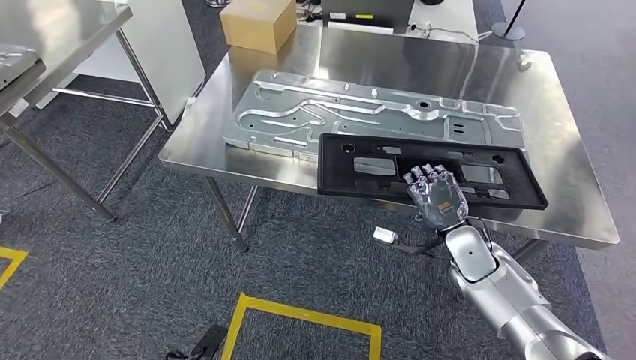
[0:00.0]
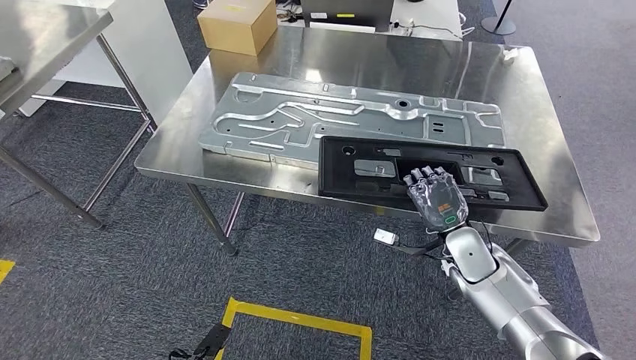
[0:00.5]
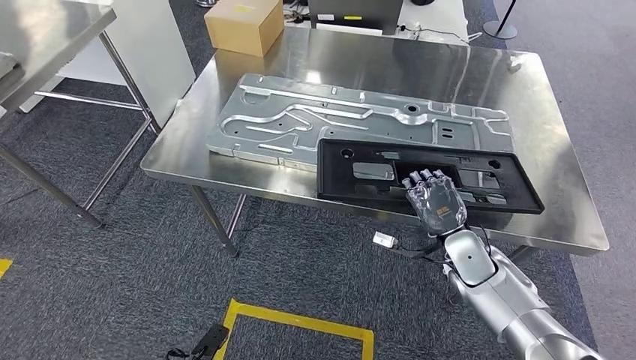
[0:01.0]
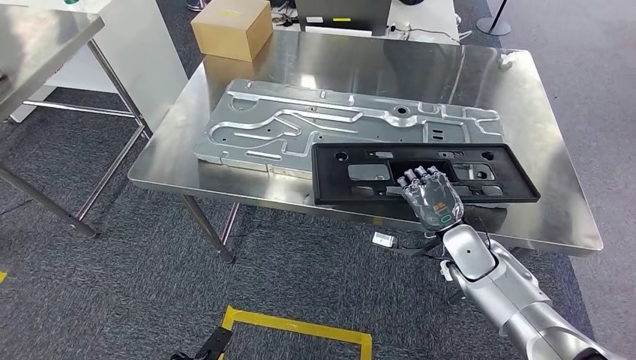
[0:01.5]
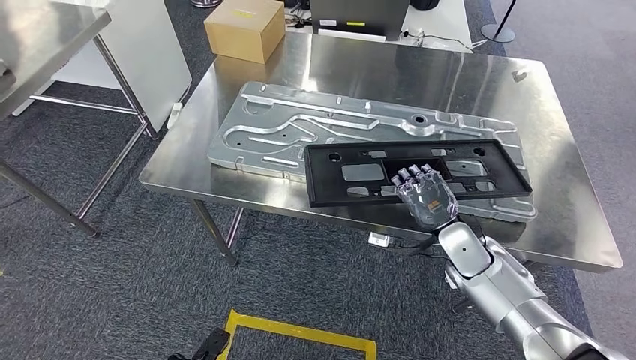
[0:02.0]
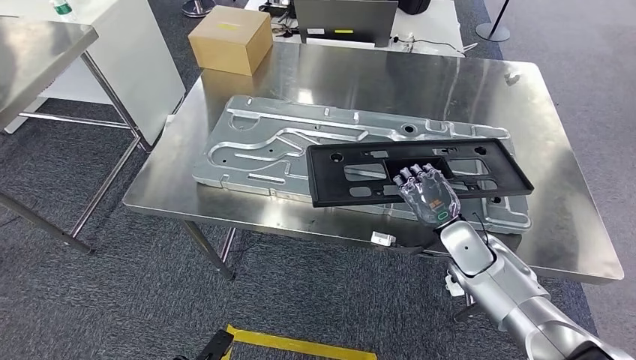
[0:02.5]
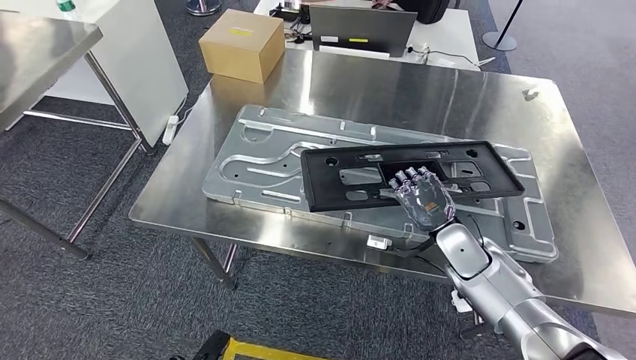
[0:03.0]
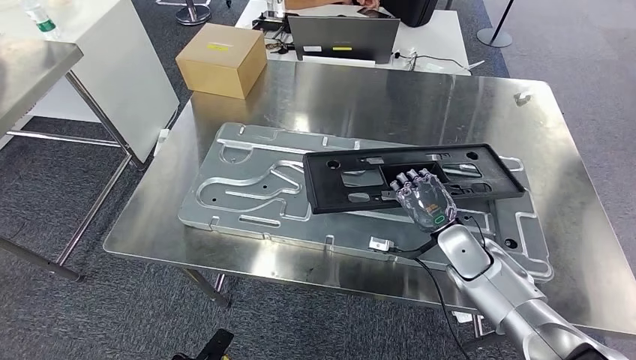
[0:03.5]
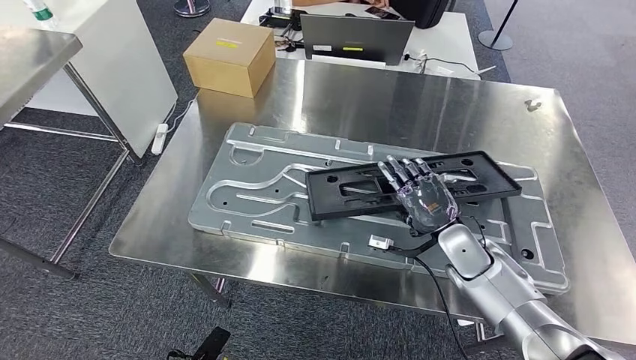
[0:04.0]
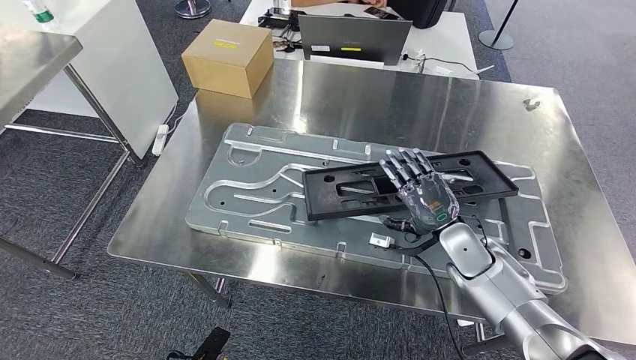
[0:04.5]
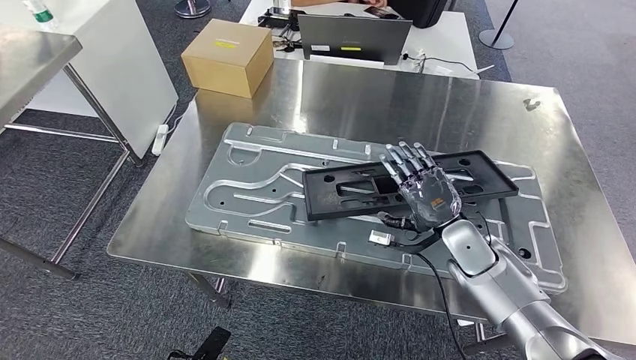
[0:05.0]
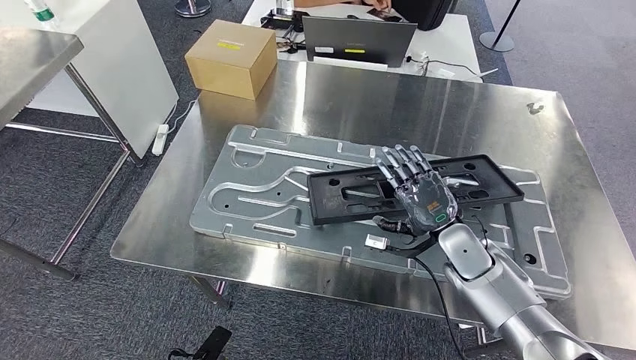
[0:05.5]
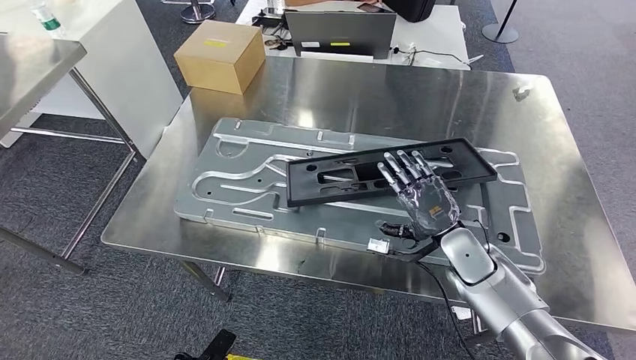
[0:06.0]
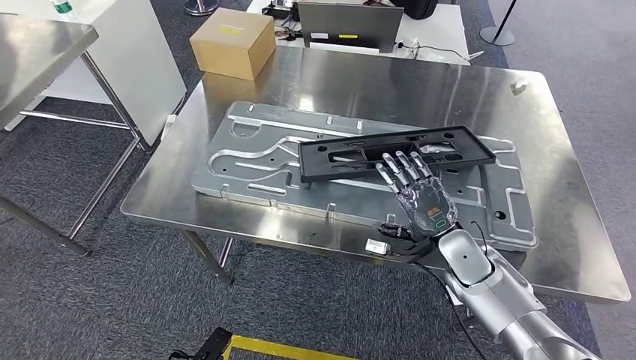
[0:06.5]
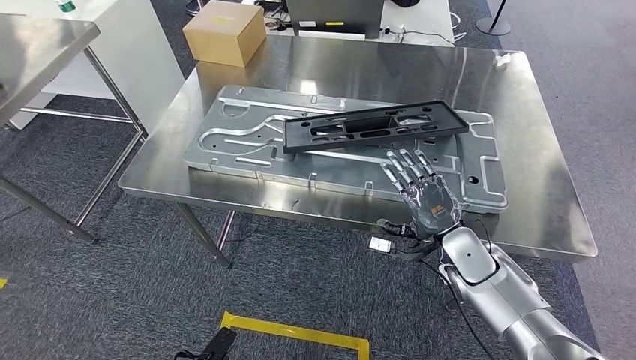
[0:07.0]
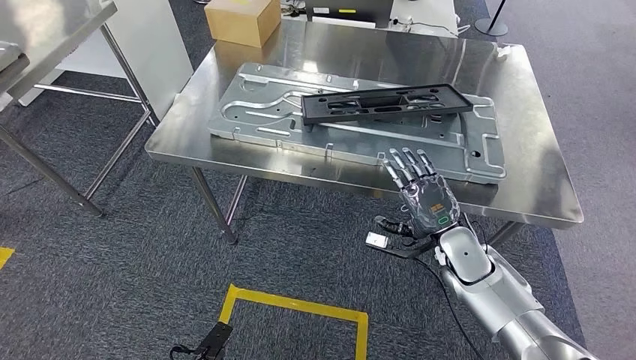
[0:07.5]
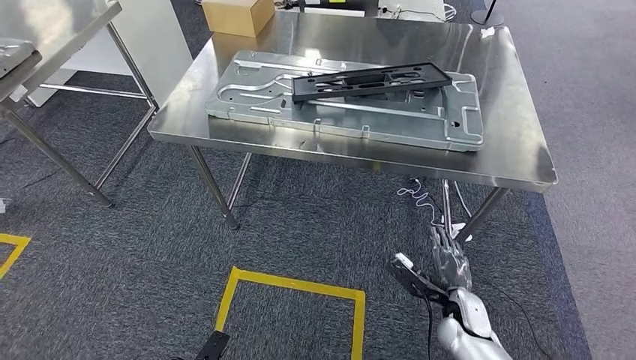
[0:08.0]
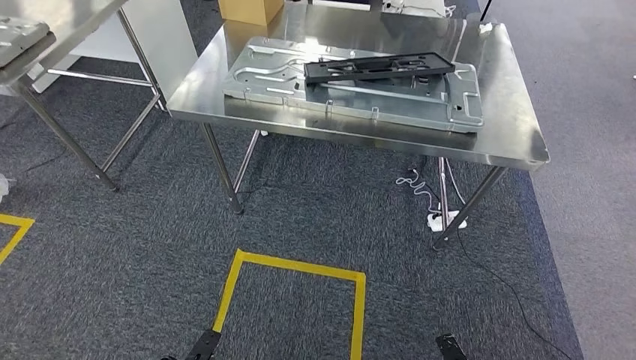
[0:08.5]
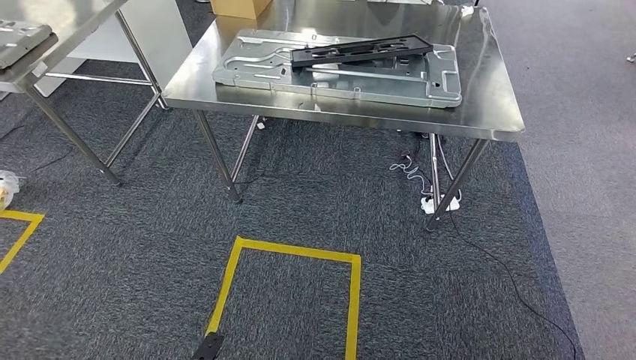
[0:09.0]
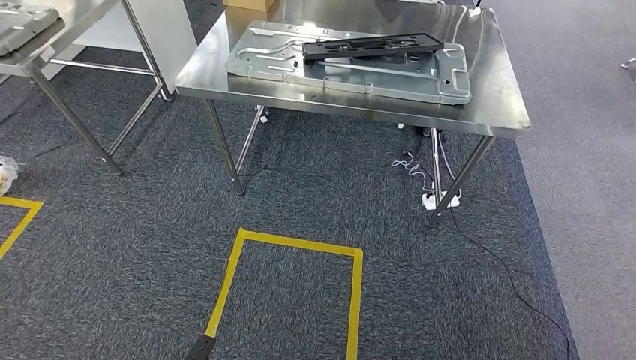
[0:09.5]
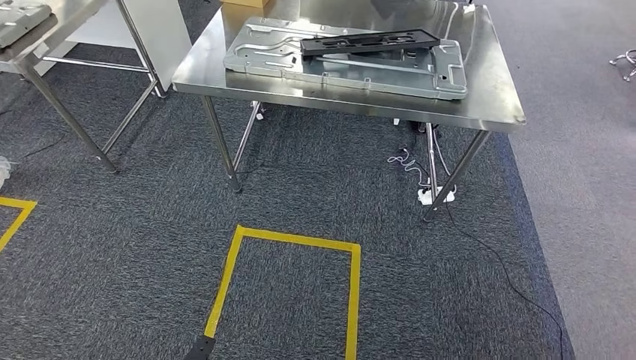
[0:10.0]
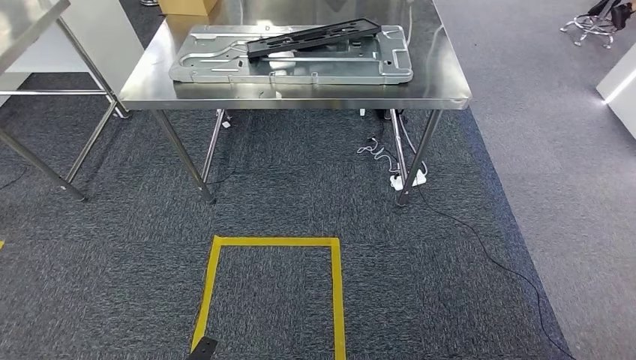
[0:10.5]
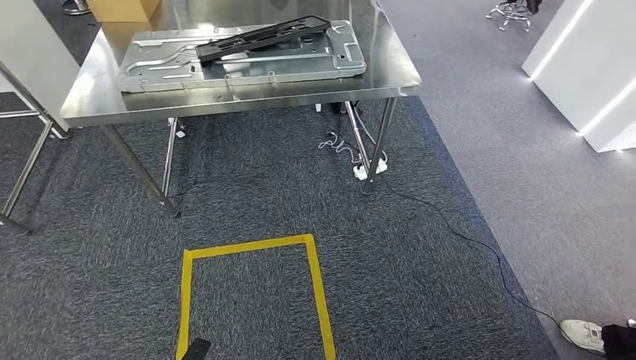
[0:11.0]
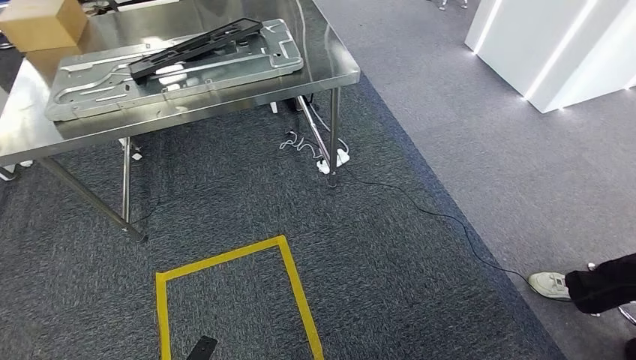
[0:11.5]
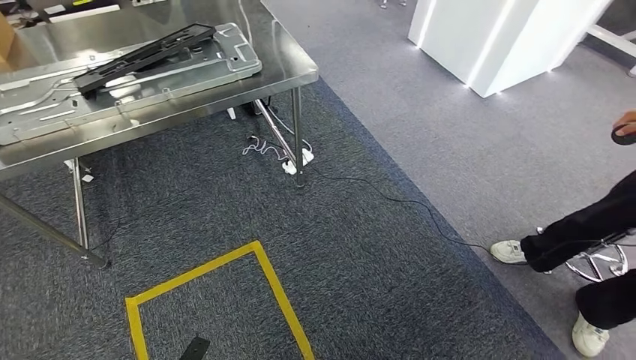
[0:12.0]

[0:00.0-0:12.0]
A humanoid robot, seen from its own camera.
Step, 0:00.0 to 0:07.5: Insert the large material into the corresponding slot on the workbench.

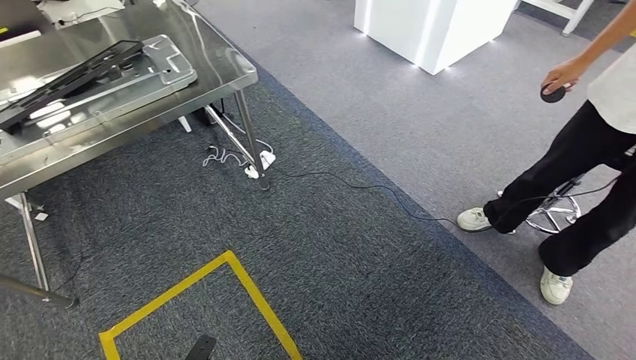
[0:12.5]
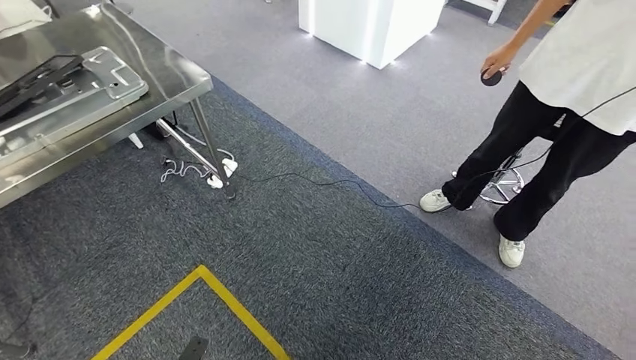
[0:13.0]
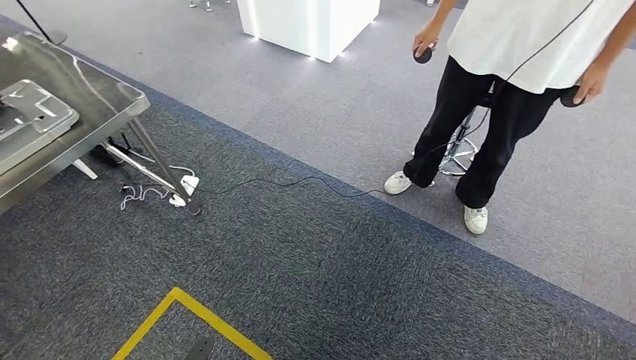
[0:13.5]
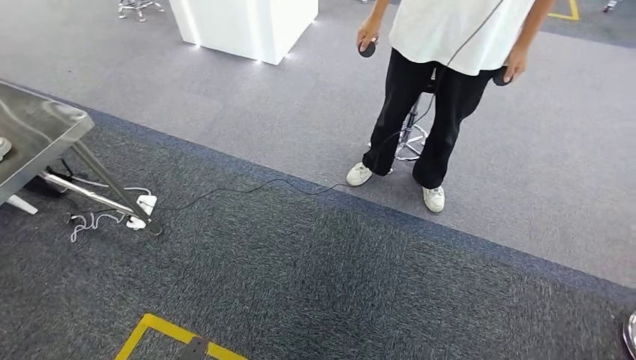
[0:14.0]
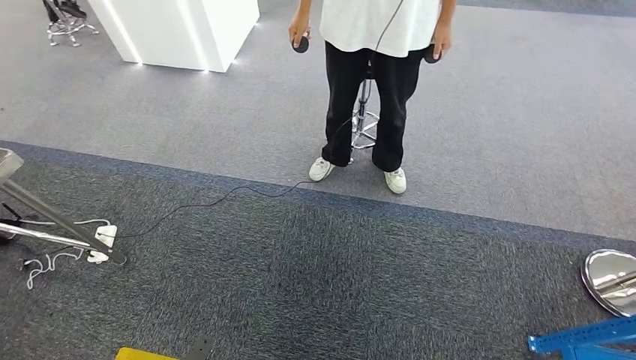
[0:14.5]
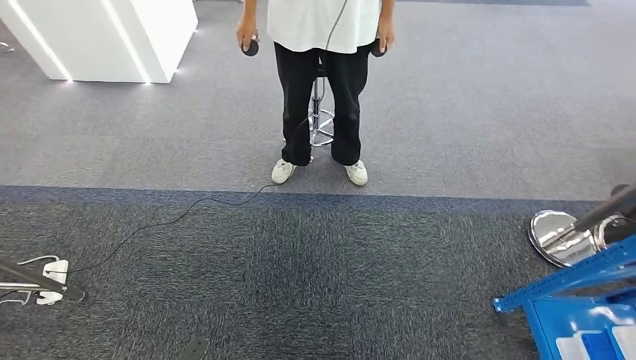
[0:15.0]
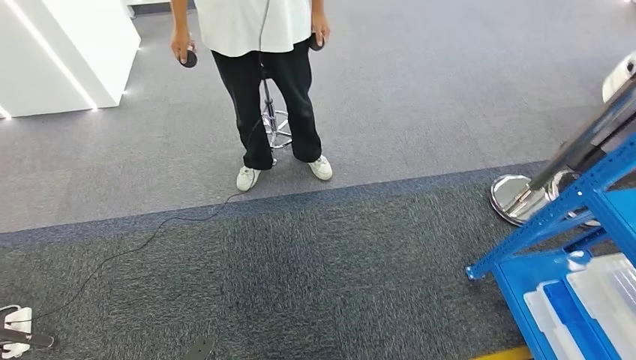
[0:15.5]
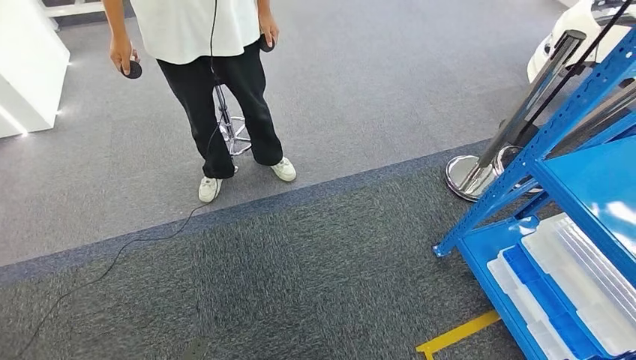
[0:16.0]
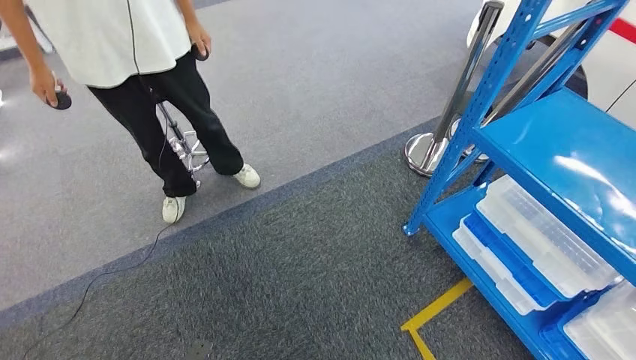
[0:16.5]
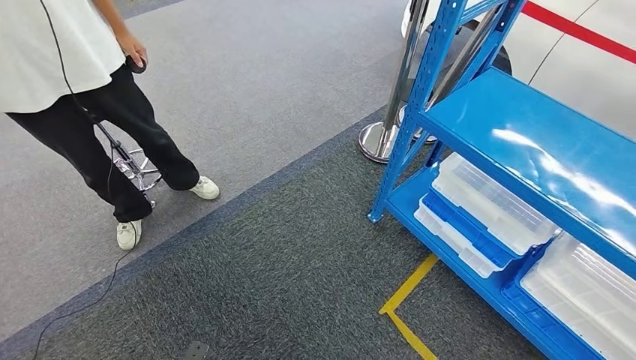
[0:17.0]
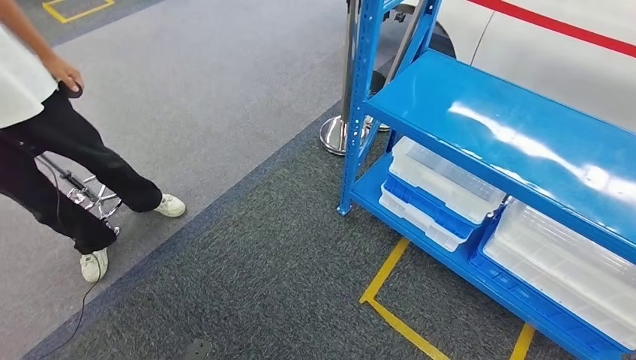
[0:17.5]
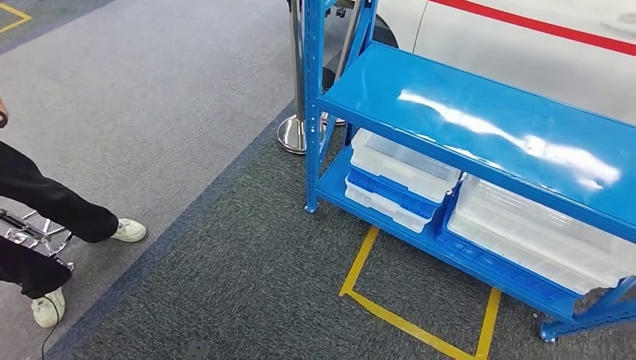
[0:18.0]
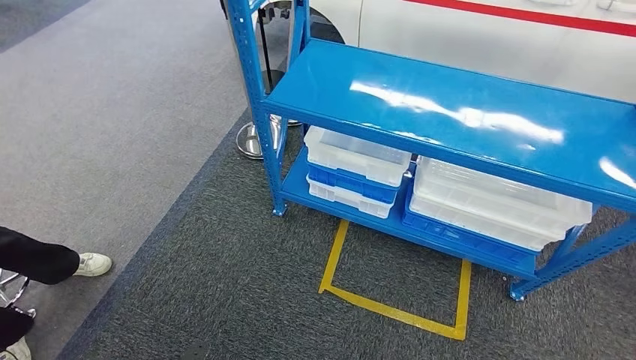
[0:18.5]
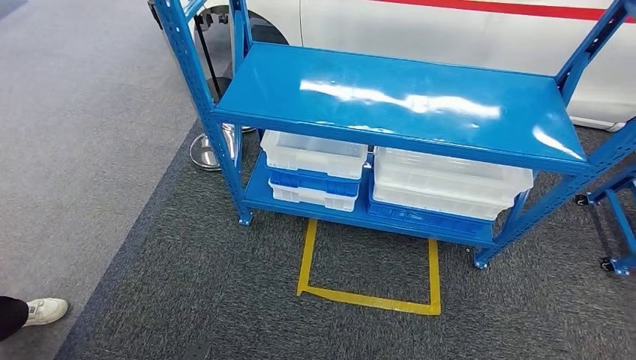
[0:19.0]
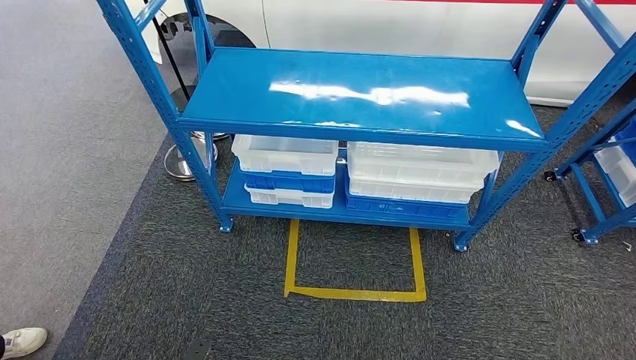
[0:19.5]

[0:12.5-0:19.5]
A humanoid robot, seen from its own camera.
Step, 0:12.5 to 0:19.5: Move to the initial position of the shelf.
